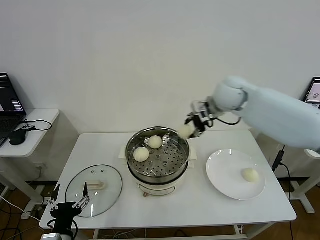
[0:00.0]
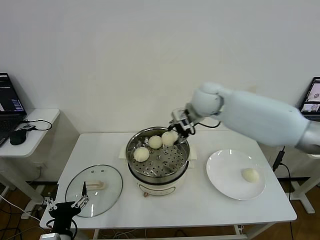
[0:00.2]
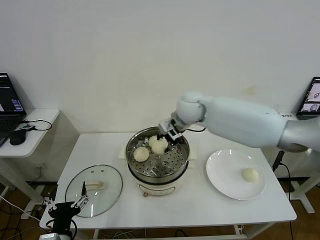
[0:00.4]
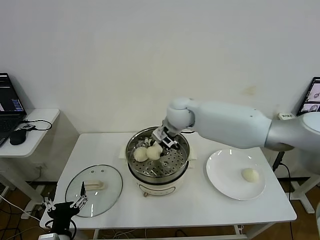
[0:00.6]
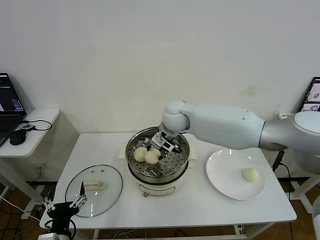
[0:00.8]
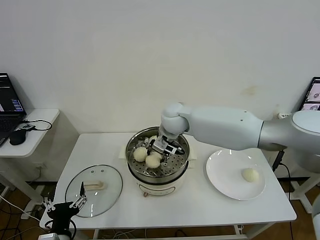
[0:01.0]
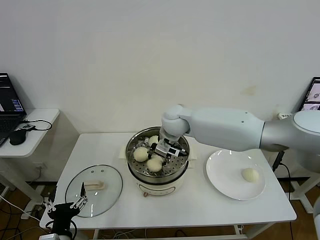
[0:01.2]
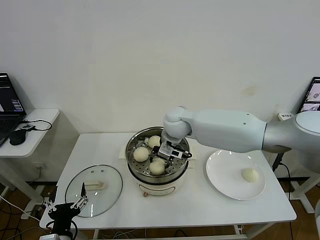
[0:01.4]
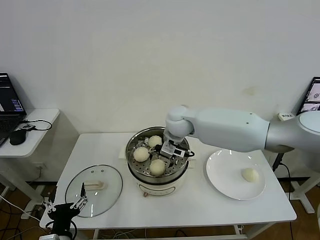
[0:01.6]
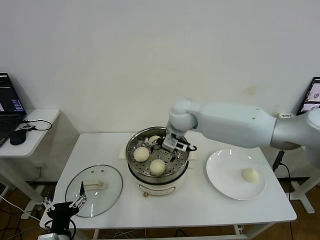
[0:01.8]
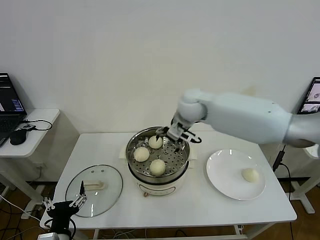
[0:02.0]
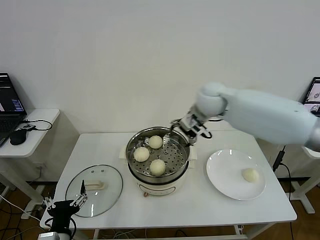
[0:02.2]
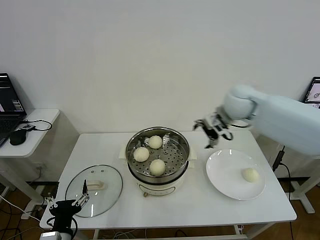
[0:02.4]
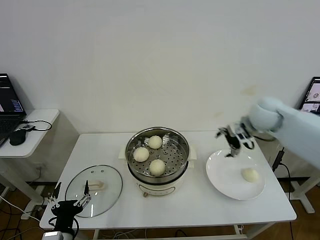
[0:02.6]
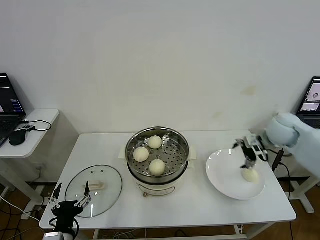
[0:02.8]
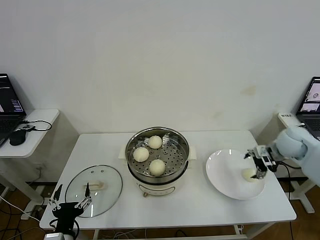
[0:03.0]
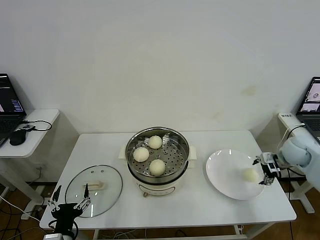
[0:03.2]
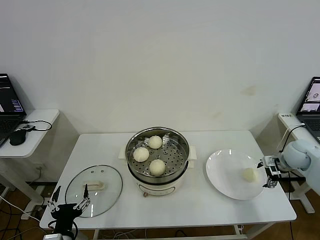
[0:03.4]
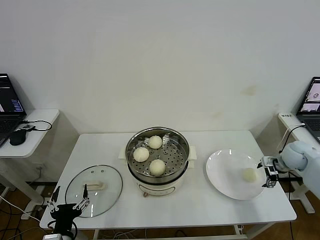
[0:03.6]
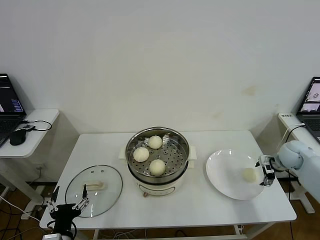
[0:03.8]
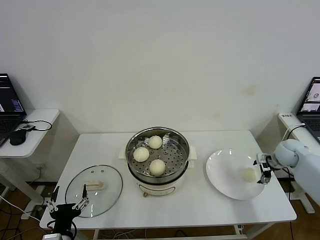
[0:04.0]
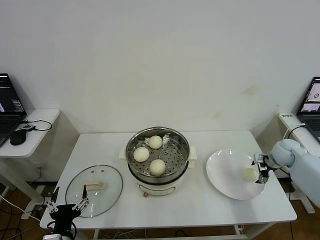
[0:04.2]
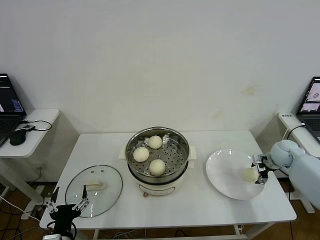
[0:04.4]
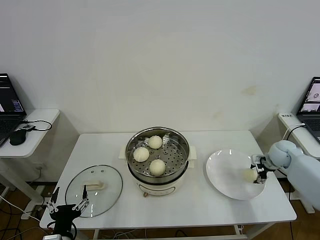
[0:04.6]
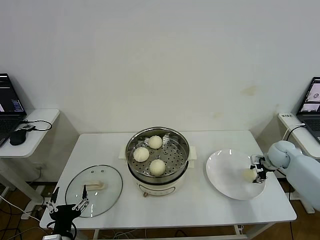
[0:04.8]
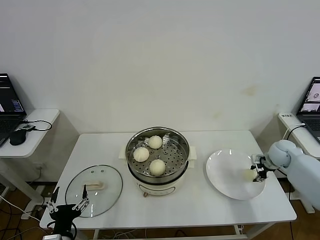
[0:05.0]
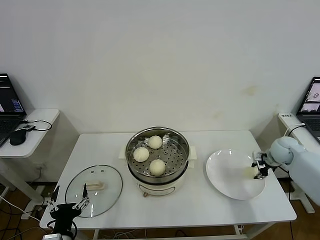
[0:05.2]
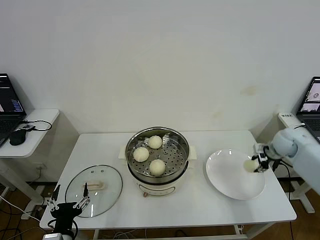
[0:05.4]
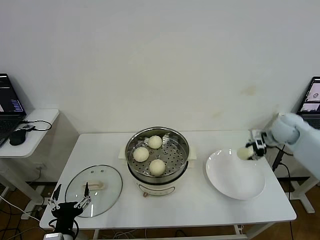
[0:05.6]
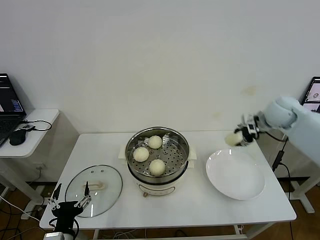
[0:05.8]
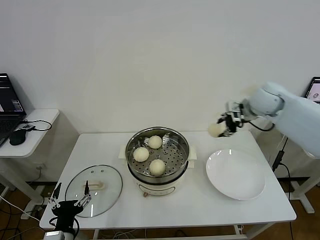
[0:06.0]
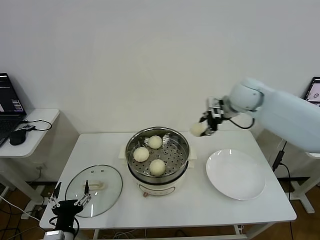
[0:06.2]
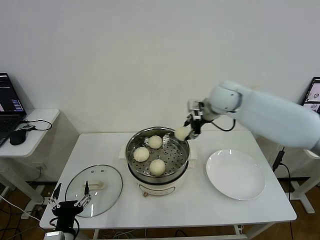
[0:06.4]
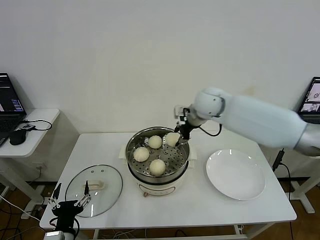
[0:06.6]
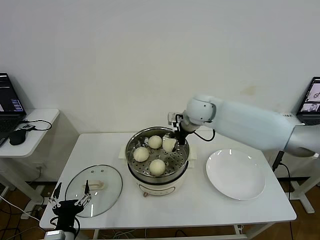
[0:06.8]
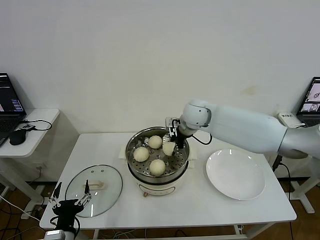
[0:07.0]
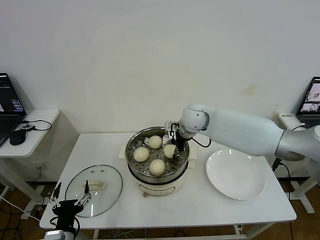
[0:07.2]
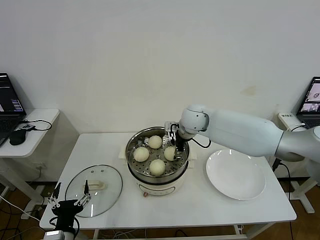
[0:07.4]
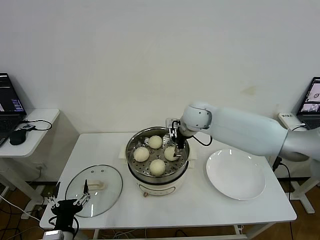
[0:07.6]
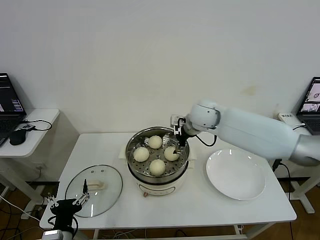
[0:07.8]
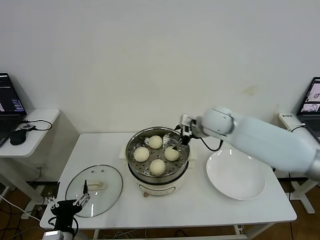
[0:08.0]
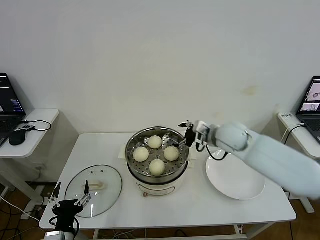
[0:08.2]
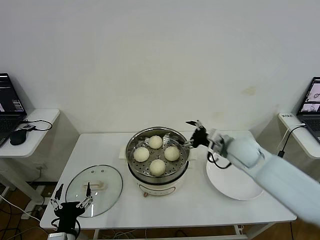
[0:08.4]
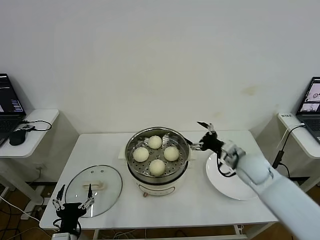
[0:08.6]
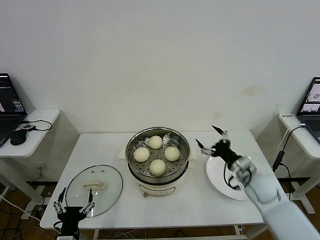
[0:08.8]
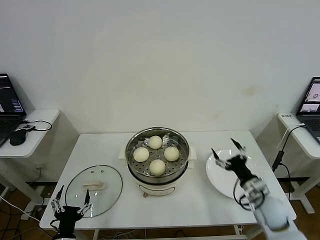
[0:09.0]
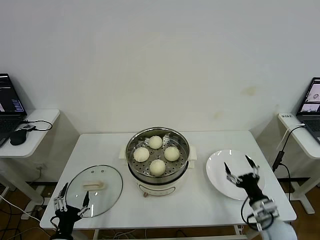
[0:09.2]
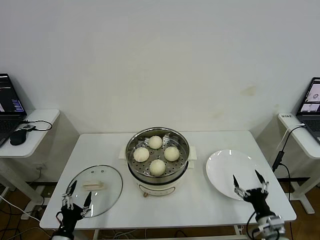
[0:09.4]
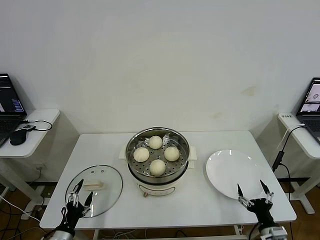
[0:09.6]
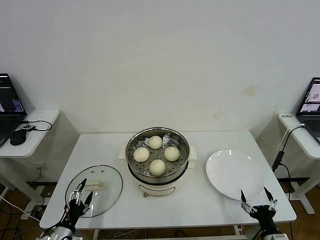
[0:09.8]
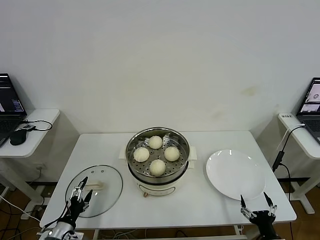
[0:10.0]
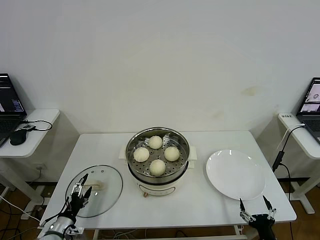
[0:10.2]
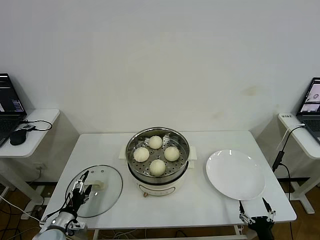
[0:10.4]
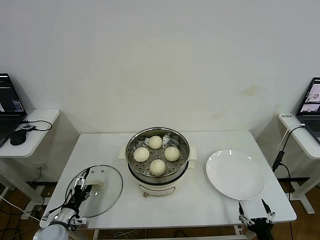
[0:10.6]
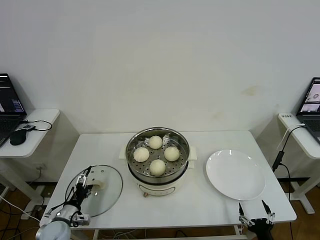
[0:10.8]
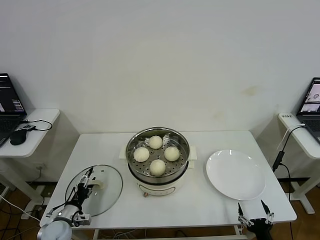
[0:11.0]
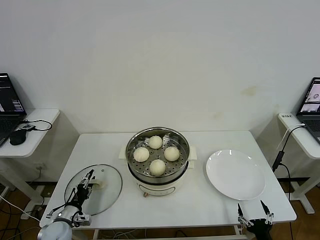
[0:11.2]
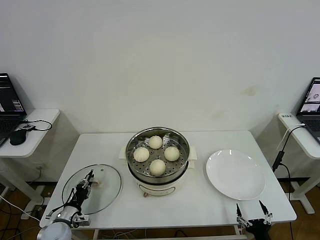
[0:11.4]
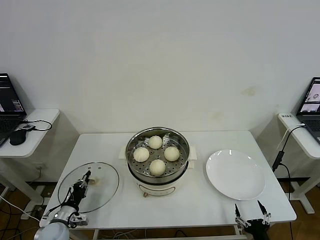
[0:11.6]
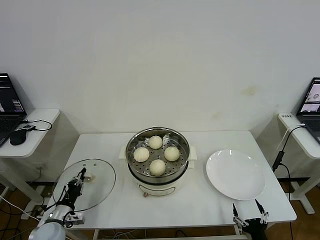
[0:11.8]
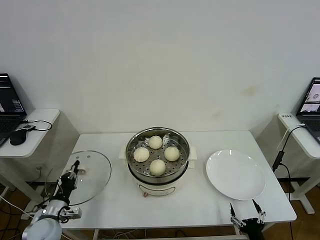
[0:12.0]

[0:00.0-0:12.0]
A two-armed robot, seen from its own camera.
Step, 0.0 to 1.6 s: Place the baozi on the steamer with right gripper.
Step, 1.8 to 4.8 s: Grasp the baozi in the plate with right gripper.
Step, 5.0 to 7.4 s: Place the baozi on the steamer with right gripper.
Step, 7.6 to 11.6 s: Grasp the pot lid with left gripper.
0.0 to 1.6 s: The right gripper is displaced to the left and downward by roughly 15 cm, and opens up.
1.6 to 3.0 s: The right gripper travels to the right by roughly 40 cm.
3.0 to 4.4 s: The right gripper is displaced downward by approximately 10 cm.
4.4 to 6.0 s: The right gripper is displaced upward and to the left by roughly 25 cm, and closes.
6.0 to 7.6 s: The right gripper is displaced to the left by approximately 20 cm, and opens its fingers.
7.6 to 9.0 s: The right gripper is displaced backward, to the right and downward by roughly 40 cm; the left gripper changes place by some 5 cm.
9.0 to 10.4 s: The right gripper goes approximately 20 cm backward and downward; the left gripper moves forward, to the left and downward, roughly 15 cm.
10.4 to 12.0 s: The left gripper closes up.

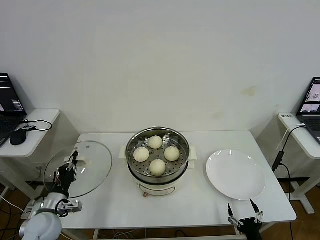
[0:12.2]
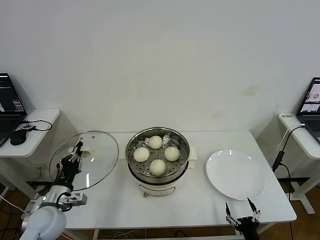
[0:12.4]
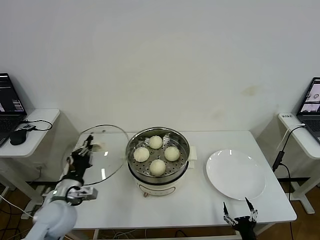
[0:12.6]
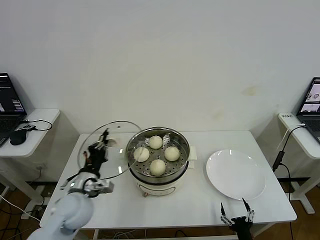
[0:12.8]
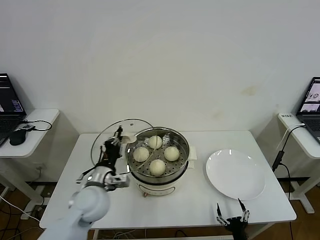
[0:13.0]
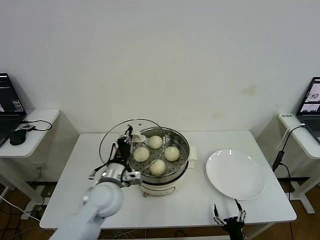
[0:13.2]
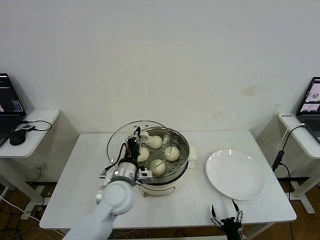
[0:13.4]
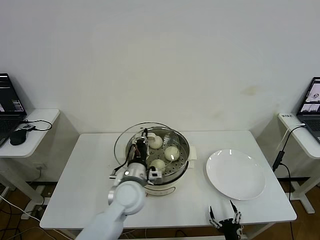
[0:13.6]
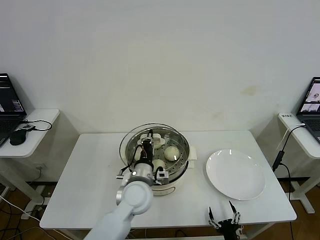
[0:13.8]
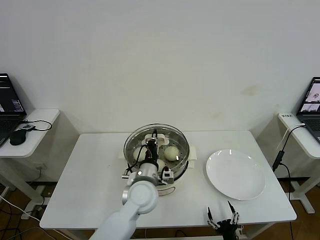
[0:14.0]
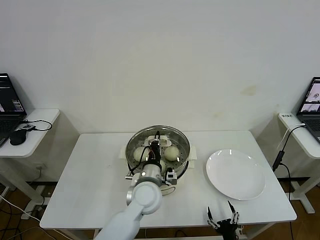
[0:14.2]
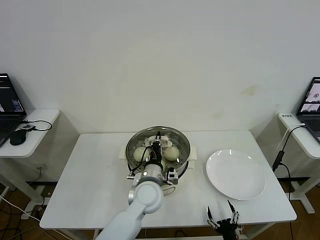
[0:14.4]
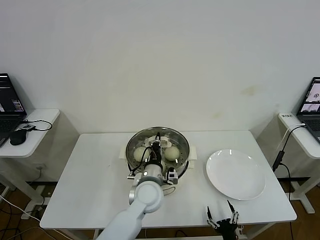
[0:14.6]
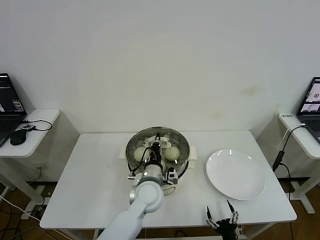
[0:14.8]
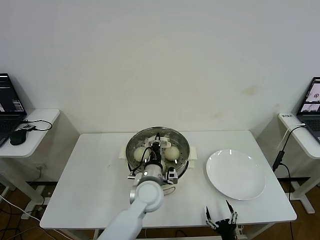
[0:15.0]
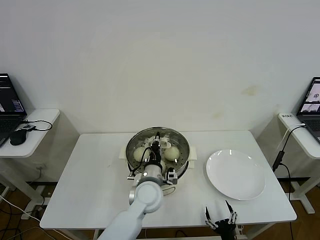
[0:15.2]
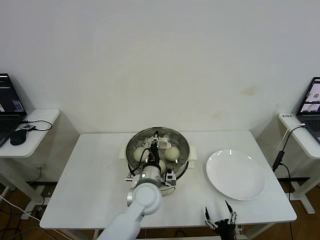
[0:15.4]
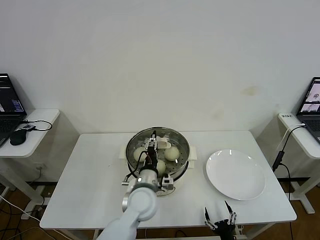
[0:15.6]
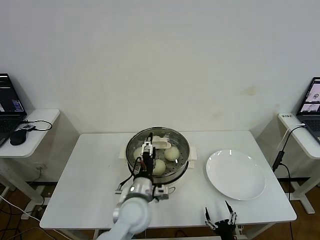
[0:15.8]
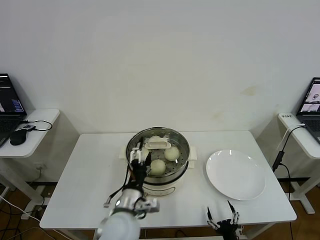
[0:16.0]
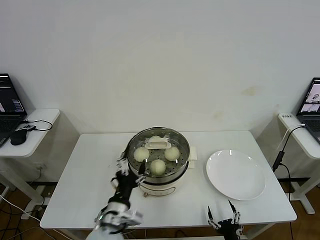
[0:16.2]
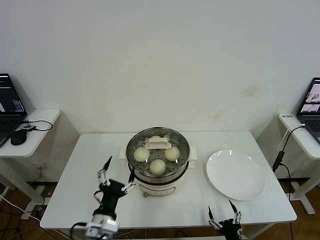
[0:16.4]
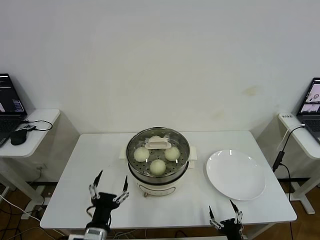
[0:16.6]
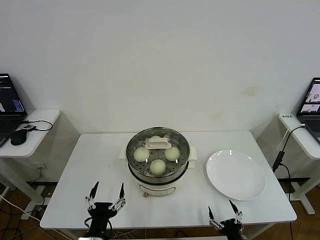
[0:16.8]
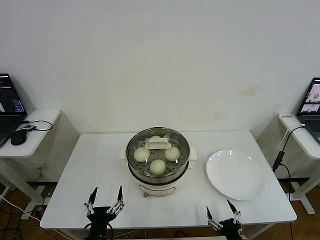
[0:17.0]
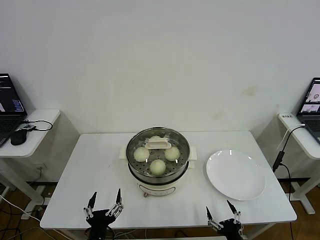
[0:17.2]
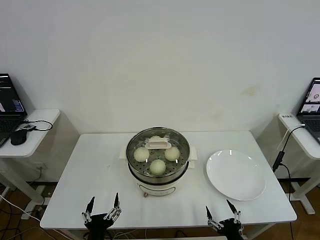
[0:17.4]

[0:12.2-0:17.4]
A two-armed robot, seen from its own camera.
Step, 12.2 to 15.4 s: Place the pot lid on the steamer with left gripper.
12.2 to 14.0 s: The left gripper shifts approximately 30 cm to the right; the right gripper shifts approximately 5 cm to the left.
14.0 to 15.6 s: The left gripper opens up.
15.6 to 17.4 s: The left gripper shifts roughly 25 cm backward and to the left, and opens its fingers; the right gripper is displaced upward by approximately 5 cm.

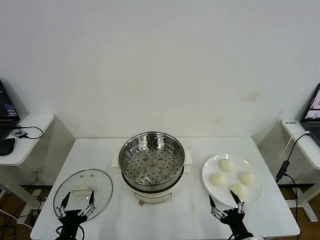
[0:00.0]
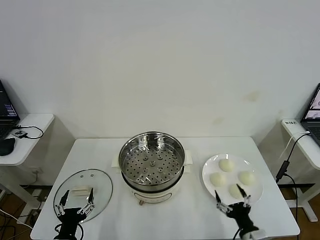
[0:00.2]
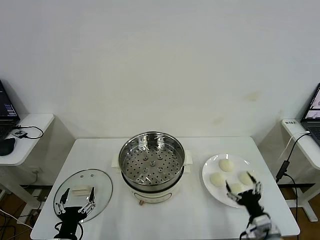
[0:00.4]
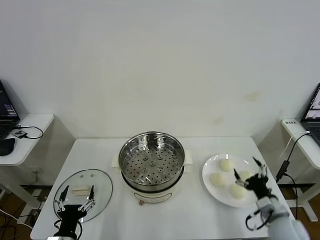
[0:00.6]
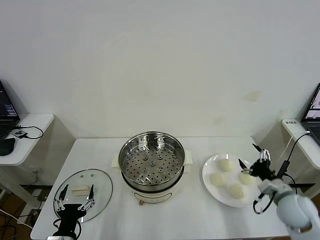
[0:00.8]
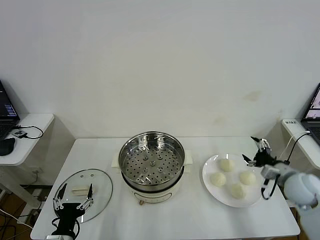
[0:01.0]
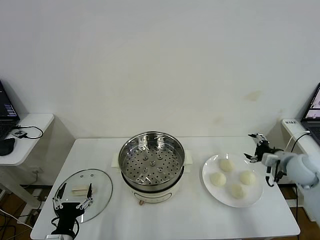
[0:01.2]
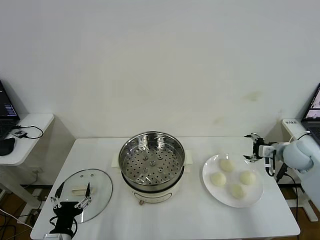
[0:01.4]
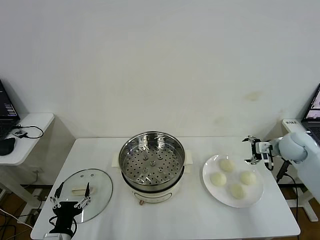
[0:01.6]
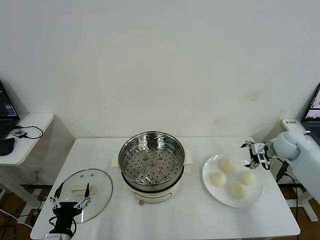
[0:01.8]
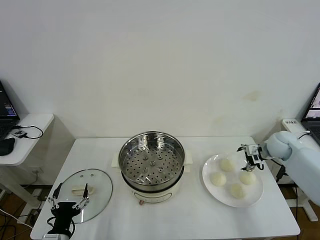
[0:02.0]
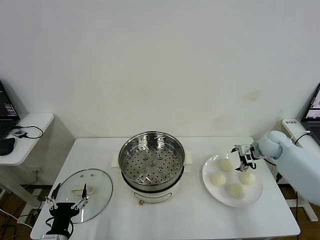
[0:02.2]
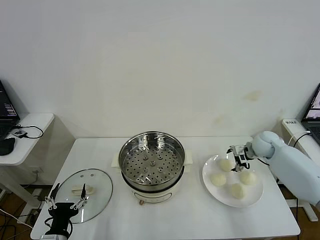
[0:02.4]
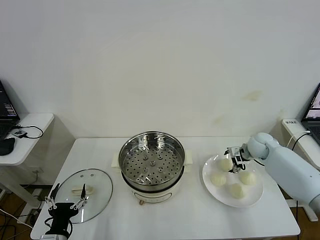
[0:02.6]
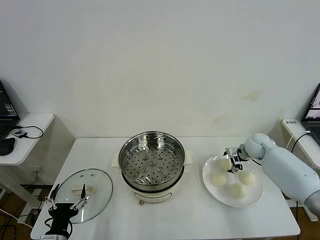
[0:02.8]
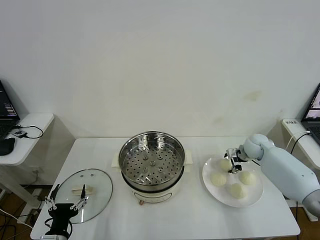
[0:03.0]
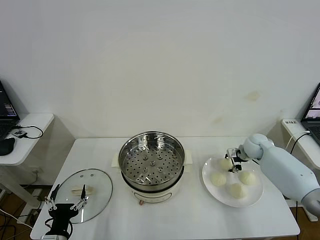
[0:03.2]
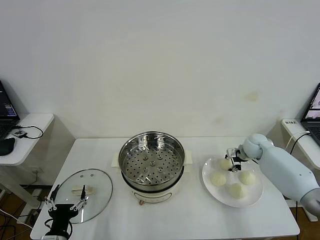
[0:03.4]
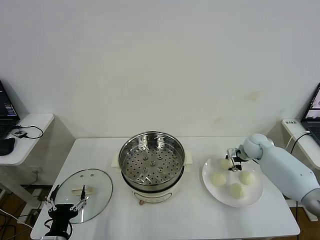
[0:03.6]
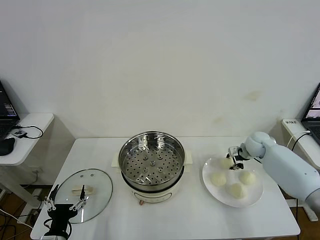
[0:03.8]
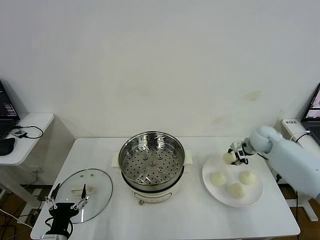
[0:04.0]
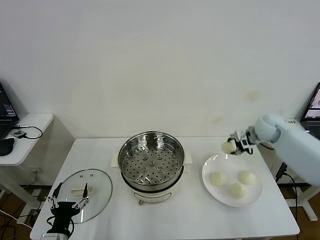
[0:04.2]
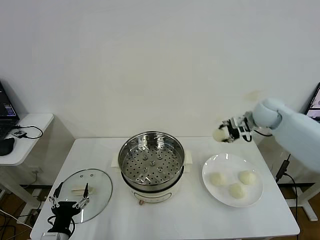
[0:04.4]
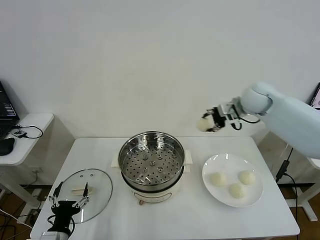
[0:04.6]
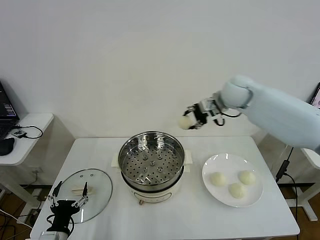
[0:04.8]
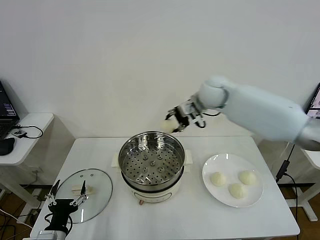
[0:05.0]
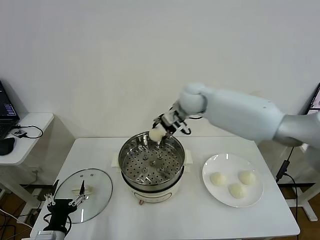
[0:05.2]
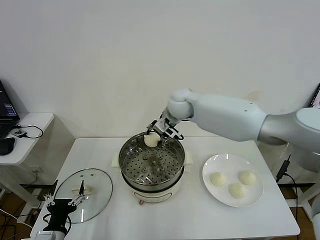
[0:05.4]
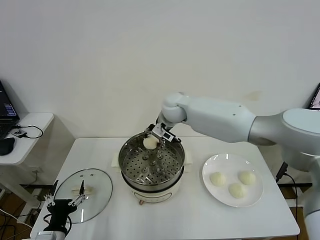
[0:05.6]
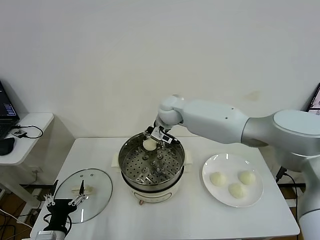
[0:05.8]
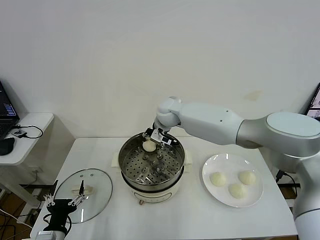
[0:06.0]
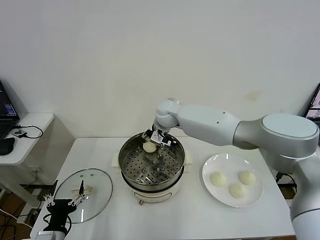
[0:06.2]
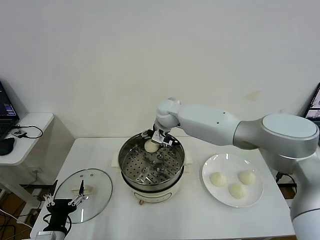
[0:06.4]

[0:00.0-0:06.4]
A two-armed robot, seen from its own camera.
Step, 0.0 to 3.6 s: Grasp the baozi in the plate with right gripper.
Step, 3.8 to 6.4 s: Place the baozi on the steamer with right gripper.
1.6 to 3.2 s: The right gripper heads downward, to the left and forward, covering about 15 cm, and closes up.
3.2 to 4.8 s: The right gripper heads upward and to the left, covering about 30 cm, and closes its fingers.
4.8 to 6.4 s: The right gripper goes approximately 20 cm to the left and downward, and opens up.
